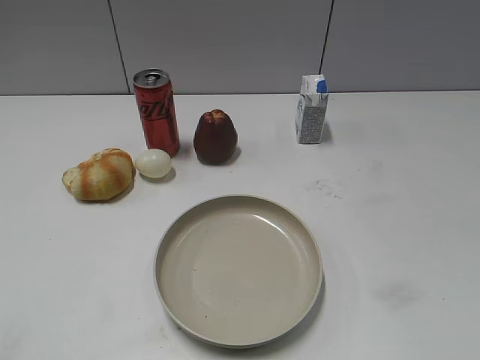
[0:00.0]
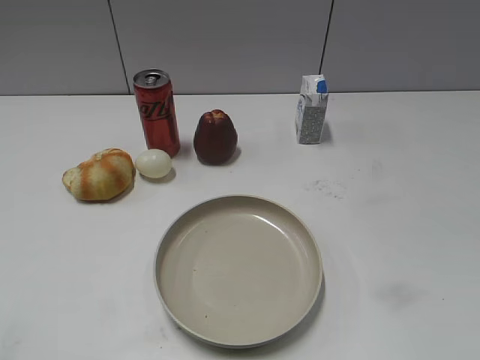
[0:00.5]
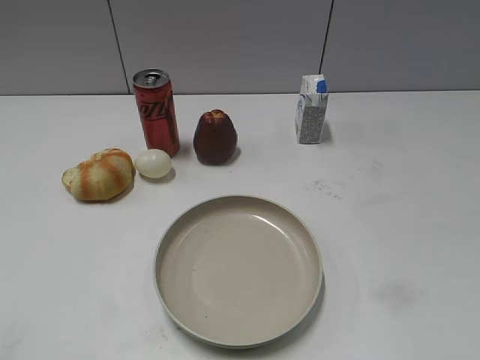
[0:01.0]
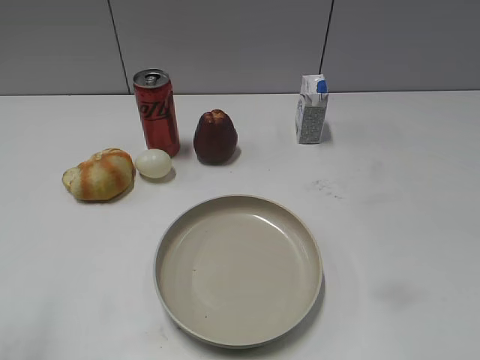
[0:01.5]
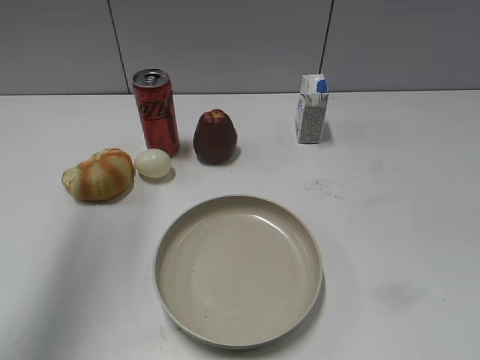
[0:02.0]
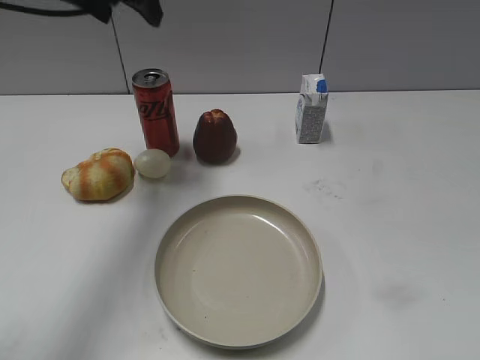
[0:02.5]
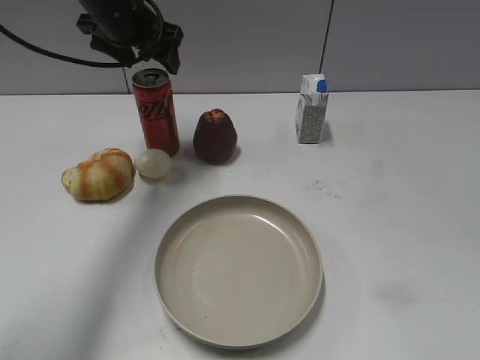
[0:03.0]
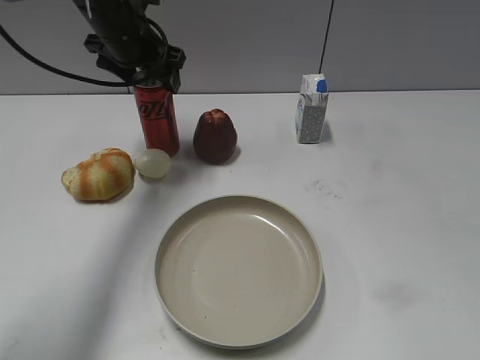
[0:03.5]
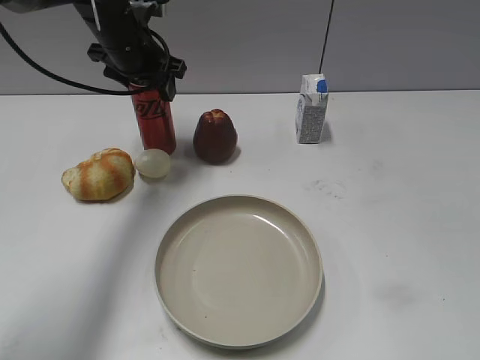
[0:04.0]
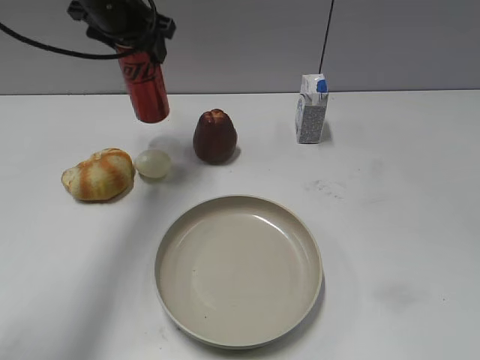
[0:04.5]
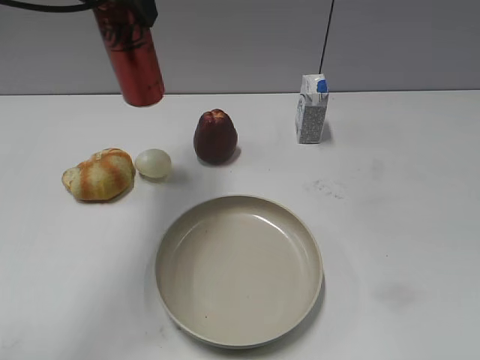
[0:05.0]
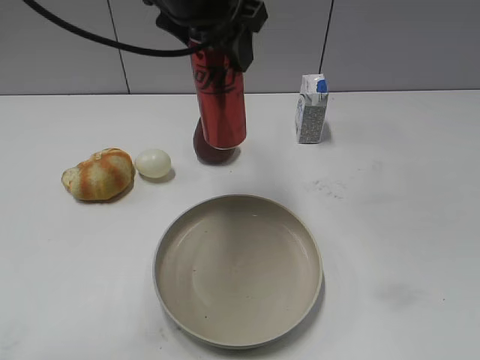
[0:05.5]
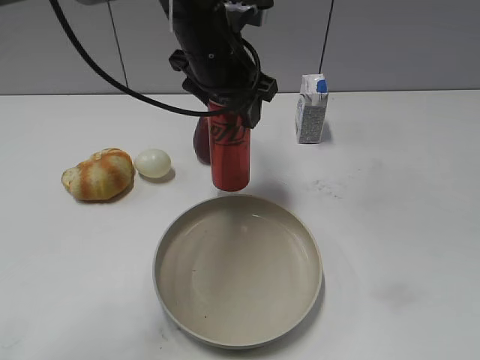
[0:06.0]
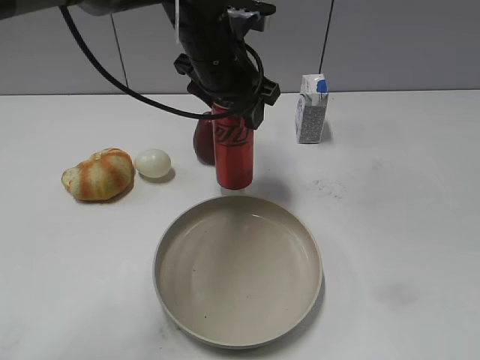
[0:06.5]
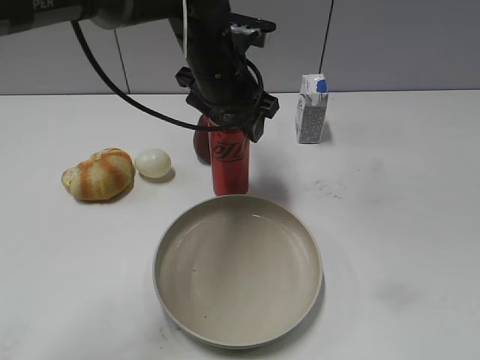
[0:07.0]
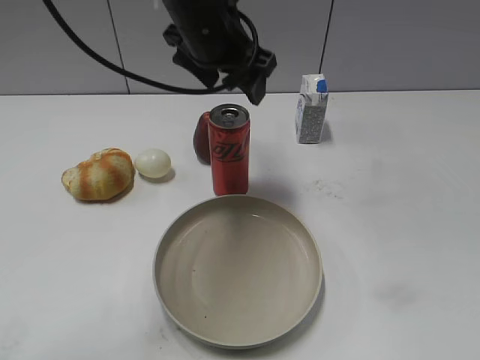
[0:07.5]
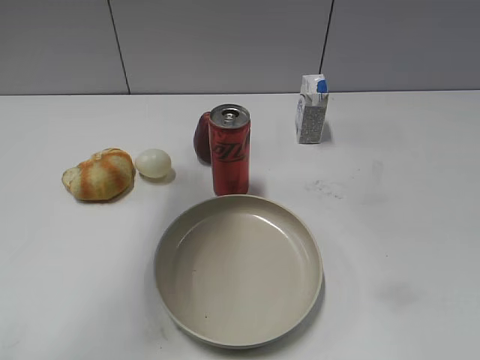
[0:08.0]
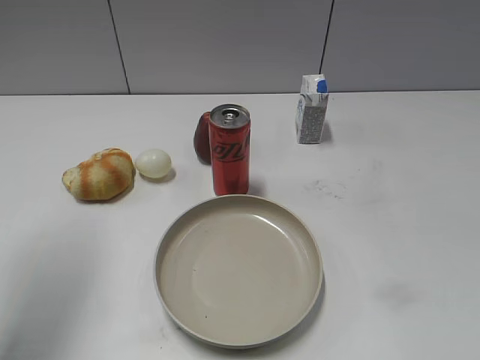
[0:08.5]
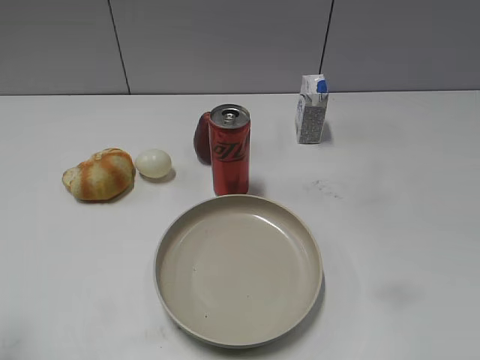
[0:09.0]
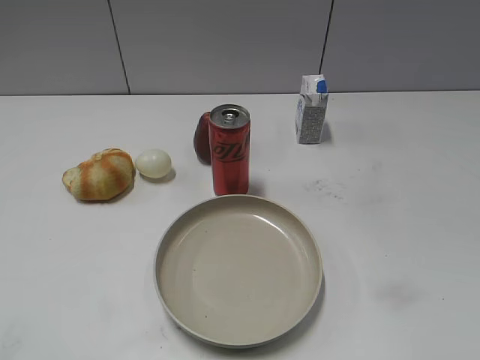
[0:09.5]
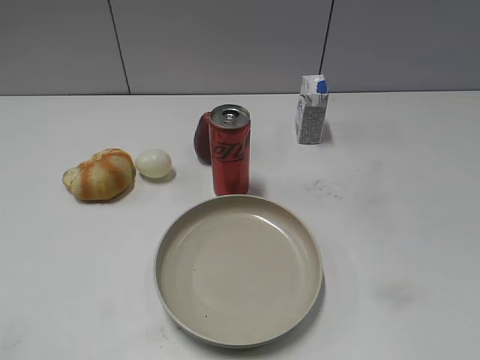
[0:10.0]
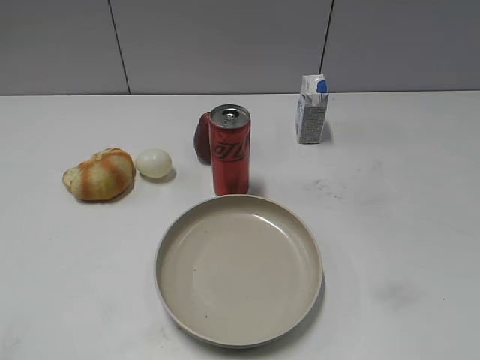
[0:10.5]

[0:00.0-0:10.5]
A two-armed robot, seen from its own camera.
Step, 0:01.0 to 0:04.0: Grasp the cola with left gripper.
Step, 0:04.5 to 0:07.5: Place the cola on the table with left gripper.
0:02.0 to 0:04.0: The left gripper travels downward, forward and to the right by roughly 30 cm, and closes up.
0:04.0 to 0:06.5: The left gripper shifts about 15 cm to the right and backward, and goes upward and returns, some 15 cm each way.
0:06.5 to 0:08.5: The left gripper travels to the left, backward and upward by about 30 cm, and opens its fingers.
0:08.5 to 0:10.5: The left gripper moves backward, approximately 25 cm.

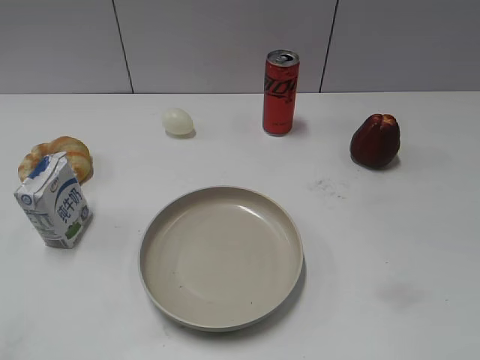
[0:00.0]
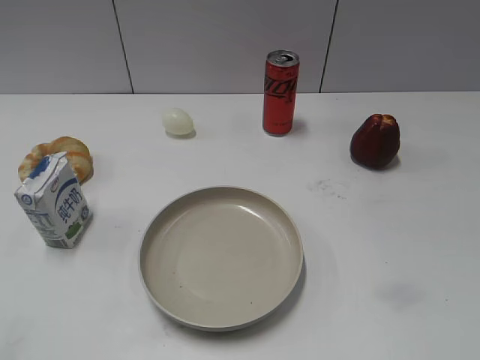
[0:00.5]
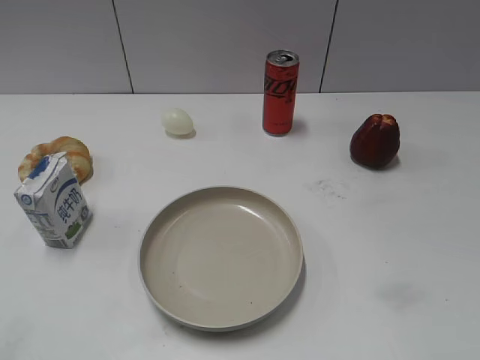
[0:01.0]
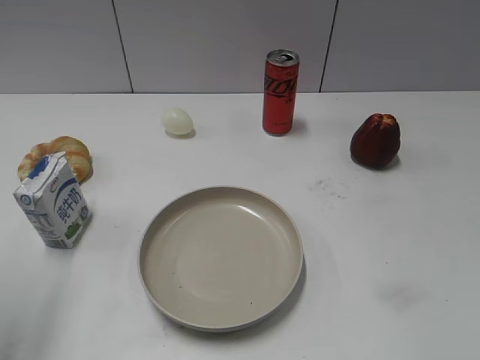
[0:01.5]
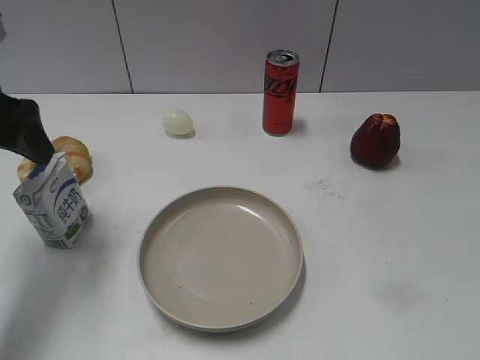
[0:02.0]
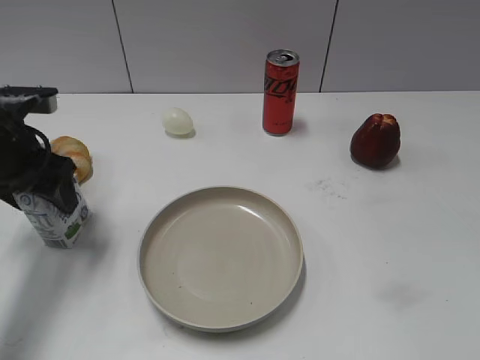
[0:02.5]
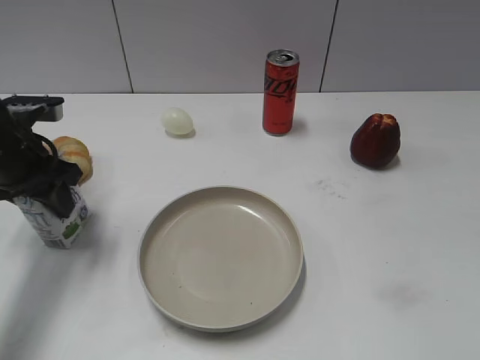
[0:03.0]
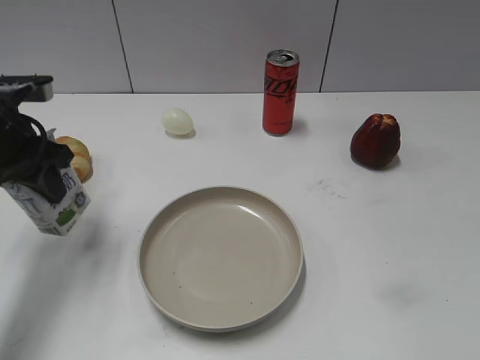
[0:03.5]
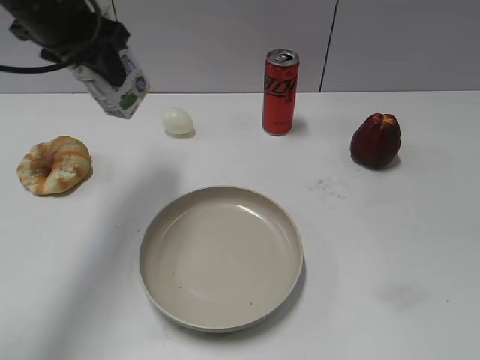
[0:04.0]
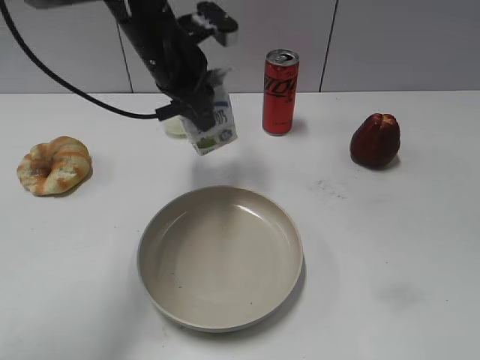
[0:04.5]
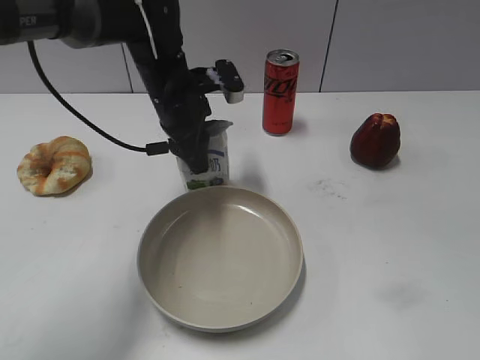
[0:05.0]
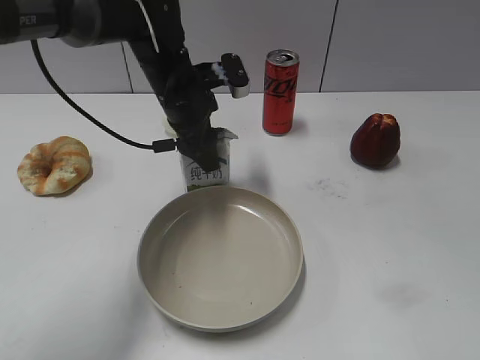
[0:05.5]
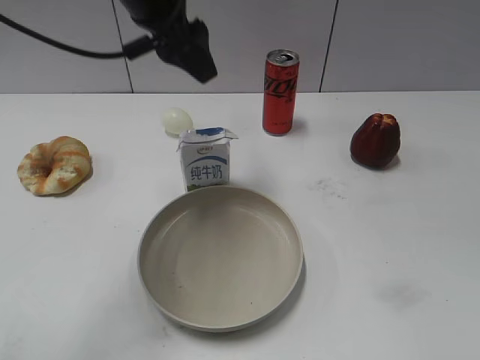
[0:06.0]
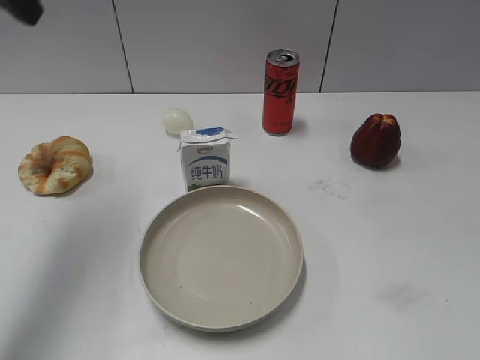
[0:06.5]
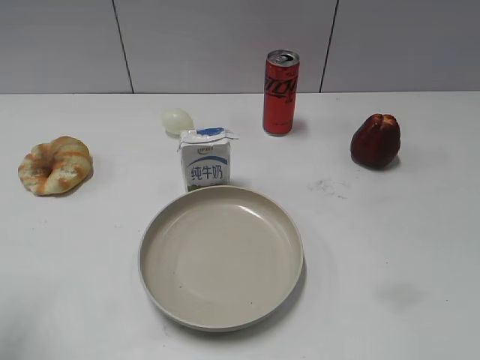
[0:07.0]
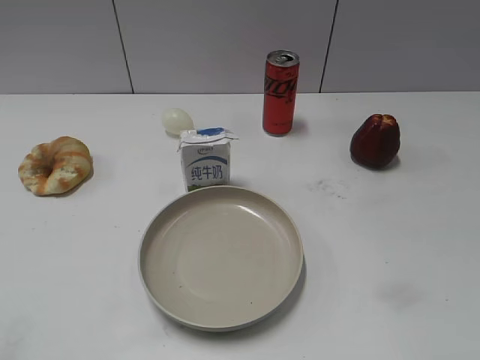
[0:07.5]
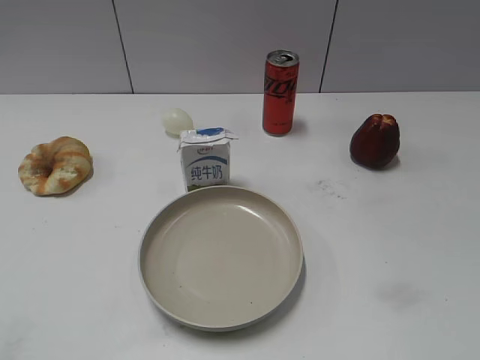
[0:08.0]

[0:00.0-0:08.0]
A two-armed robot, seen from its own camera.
Step, 0:01.0 to 0:03.0: Grasp the milk with left gripper.
Step, 0:03.5 to 0:05.5: Place the milk on the table with left gripper.
0:02.0 to 0:04.0: The left gripper goes roughly 10 cm forward and to the right, reaches some 10 cm downward, then returns, and closes up.
0:04.0 to 0:06.0: The left gripper goes some 10 cm to the right, moves some 10 cm downward and comes back, and opens its fingers.
0:06.0 to 0:08.0: The left gripper goes about 40 cm backward and to the left.
